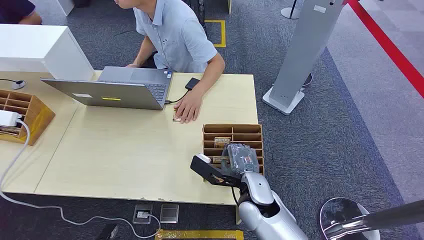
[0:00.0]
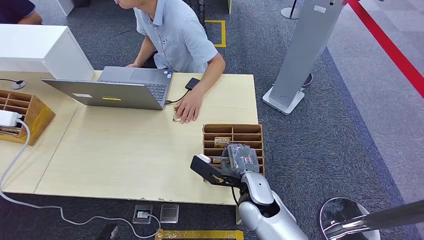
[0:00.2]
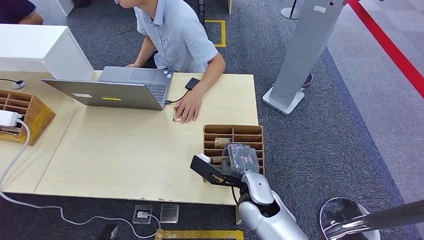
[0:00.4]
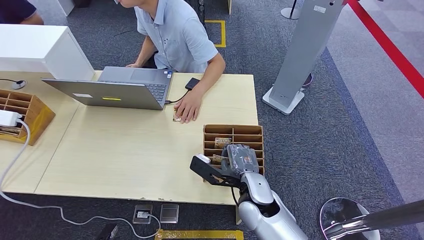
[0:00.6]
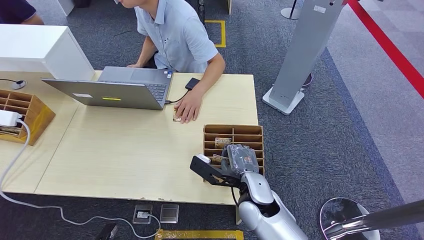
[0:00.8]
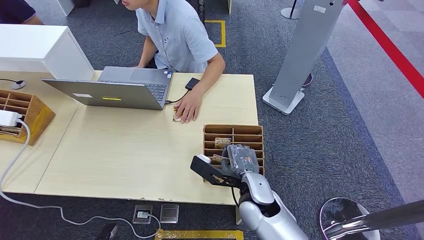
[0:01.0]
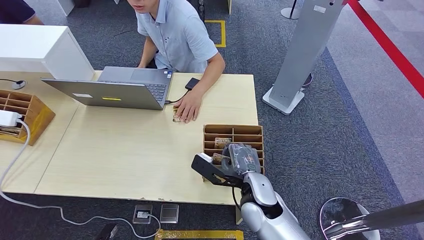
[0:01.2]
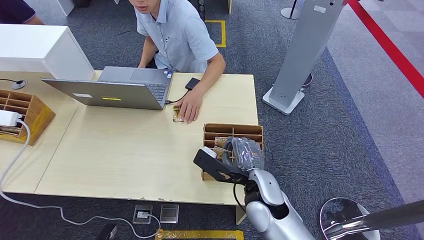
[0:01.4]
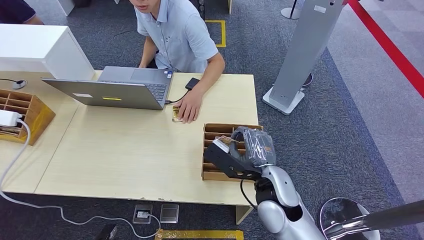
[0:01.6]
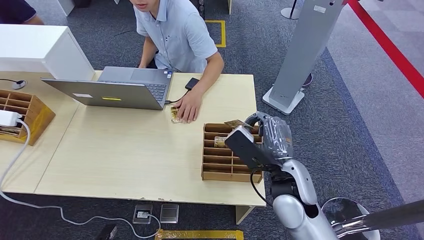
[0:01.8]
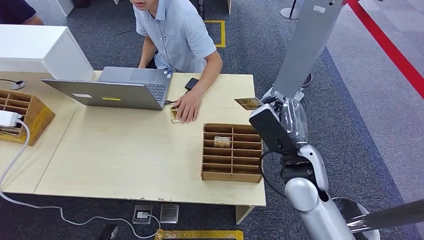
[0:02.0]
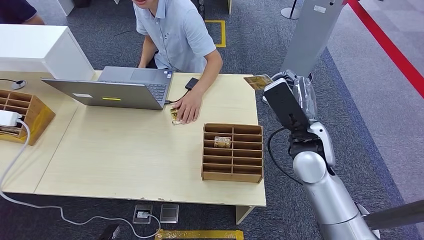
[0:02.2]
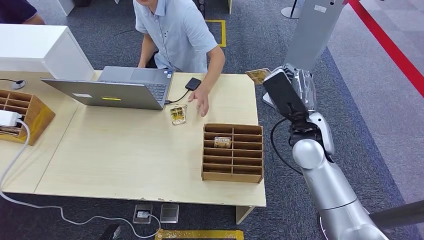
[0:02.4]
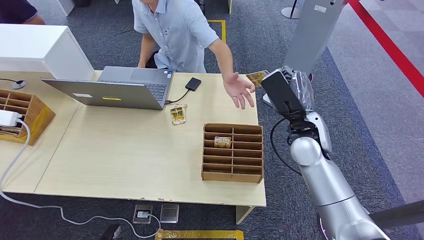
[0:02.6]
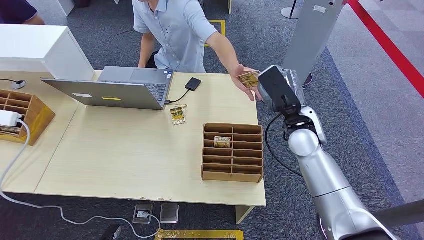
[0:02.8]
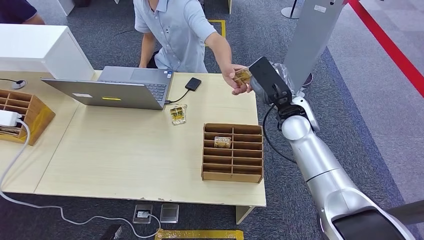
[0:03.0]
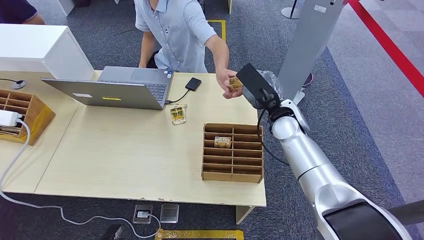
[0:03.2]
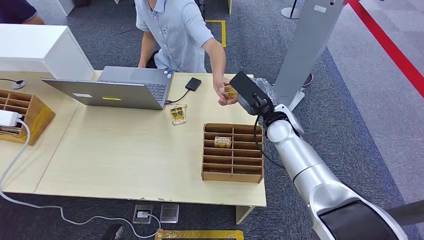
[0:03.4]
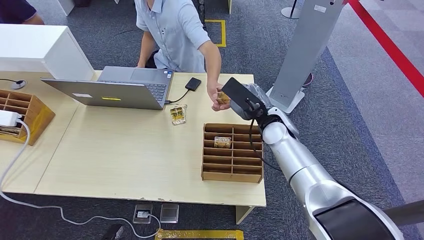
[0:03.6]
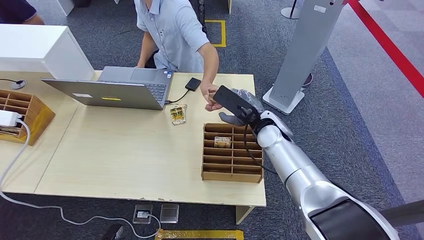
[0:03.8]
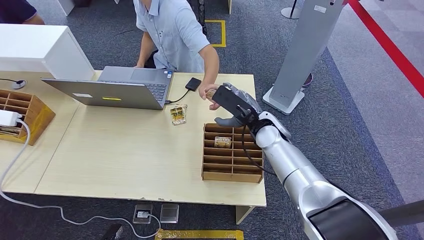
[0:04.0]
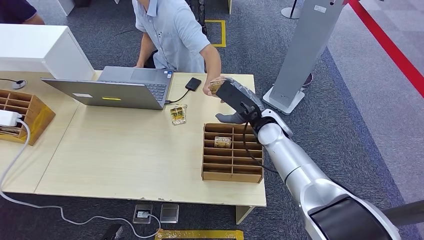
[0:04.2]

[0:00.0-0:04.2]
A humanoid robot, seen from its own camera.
Step, 0:00.0 to 0:01.4: Pick up the room card from the card holder.
Step, 0:02.4 to 0:04.2: Hand the room card to the target.
0:01.4 to 0:02.8: The right hand heads forward, covering about 20 cm.
